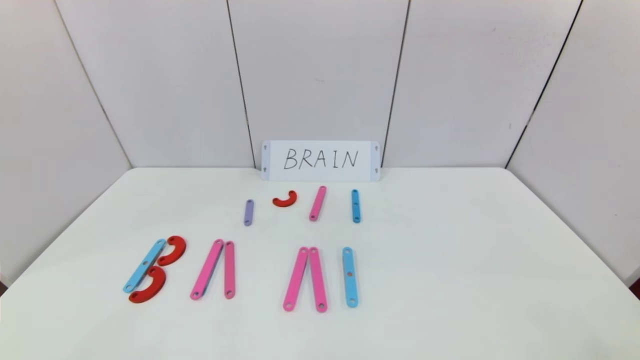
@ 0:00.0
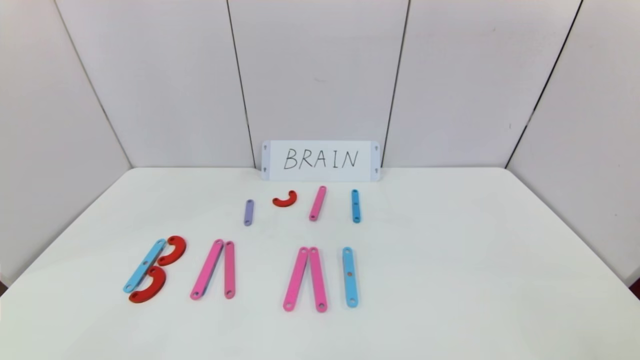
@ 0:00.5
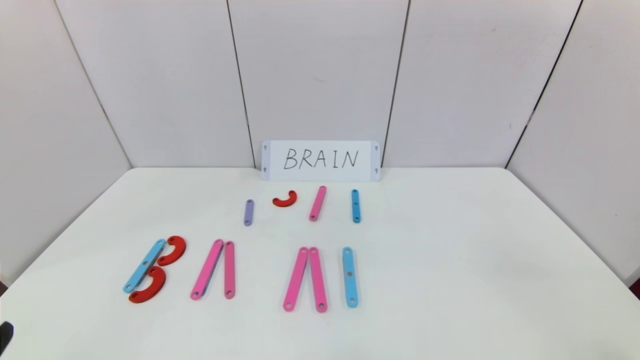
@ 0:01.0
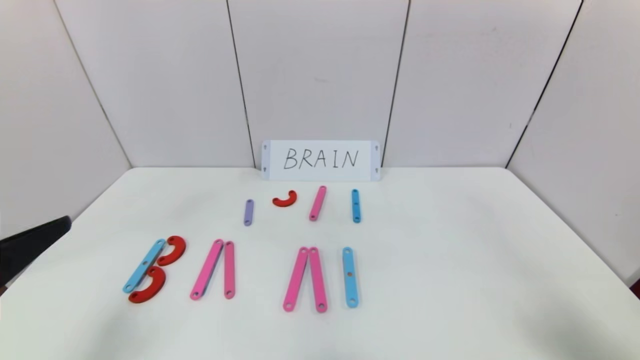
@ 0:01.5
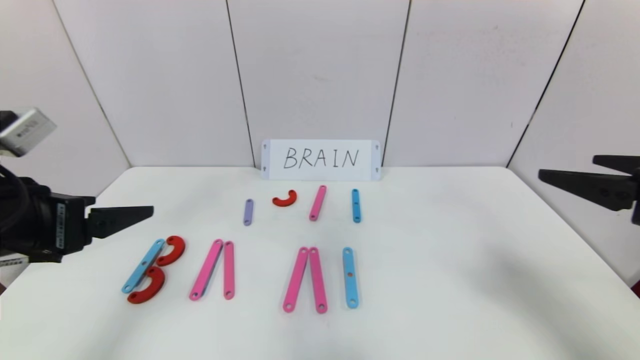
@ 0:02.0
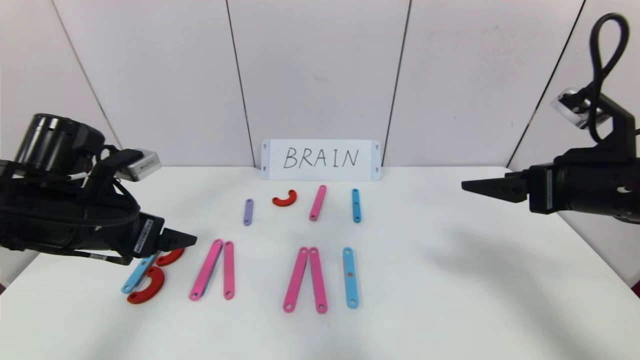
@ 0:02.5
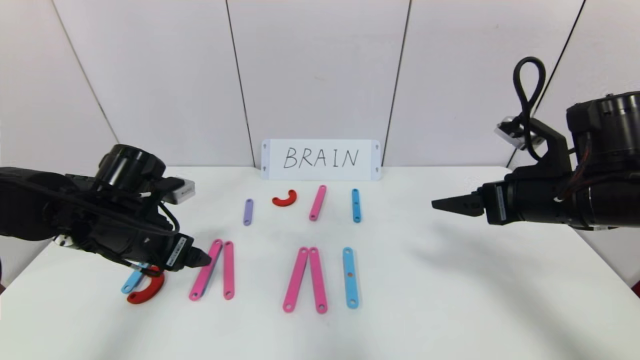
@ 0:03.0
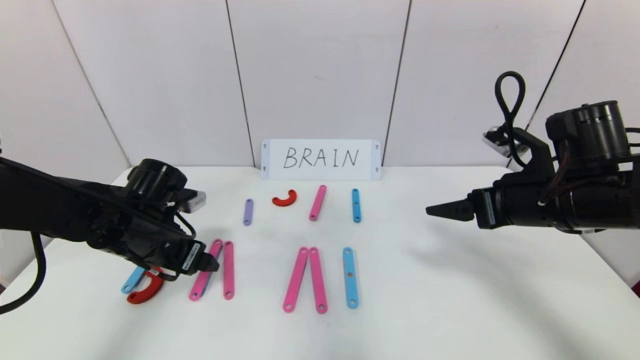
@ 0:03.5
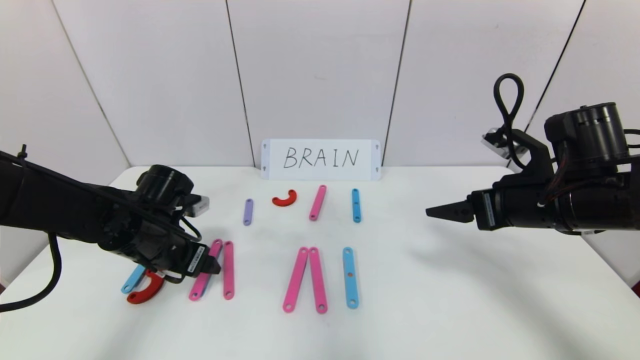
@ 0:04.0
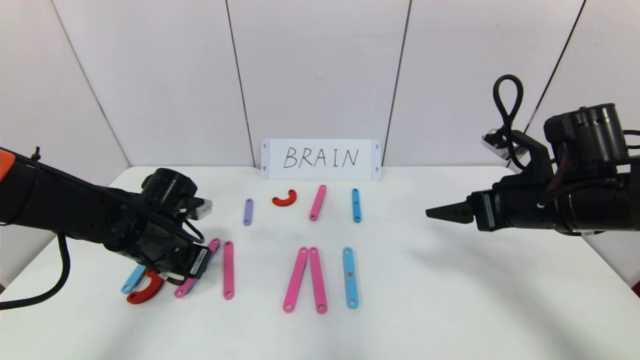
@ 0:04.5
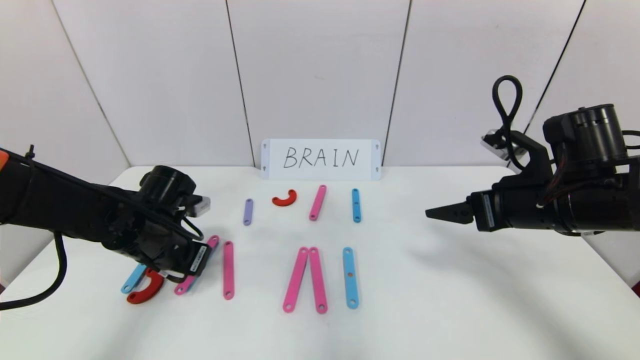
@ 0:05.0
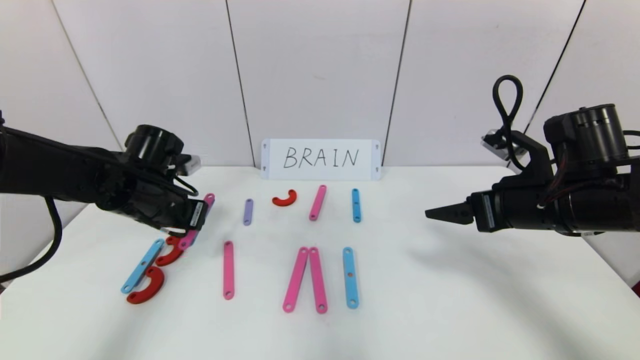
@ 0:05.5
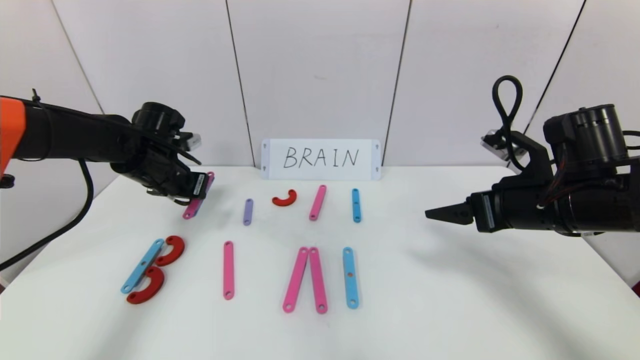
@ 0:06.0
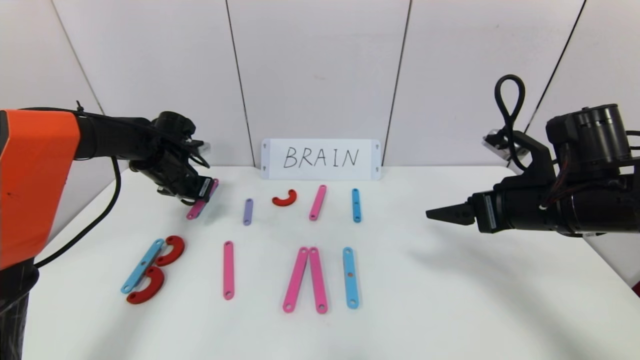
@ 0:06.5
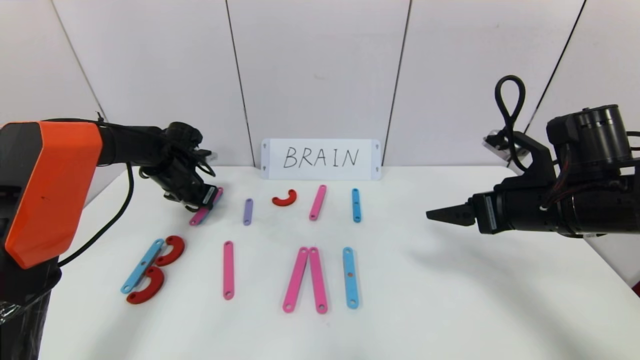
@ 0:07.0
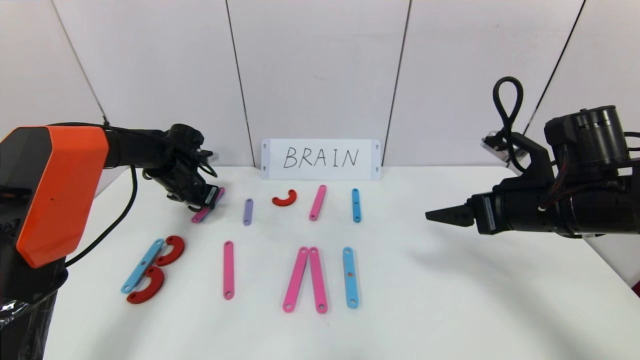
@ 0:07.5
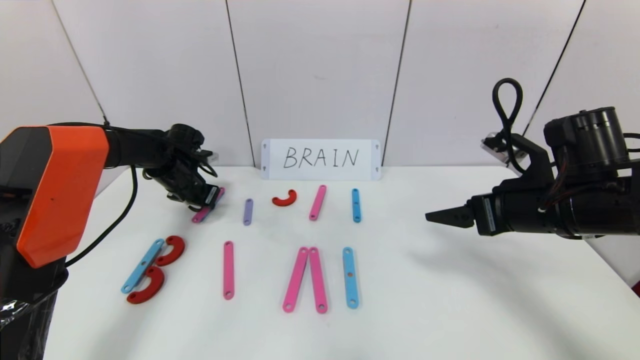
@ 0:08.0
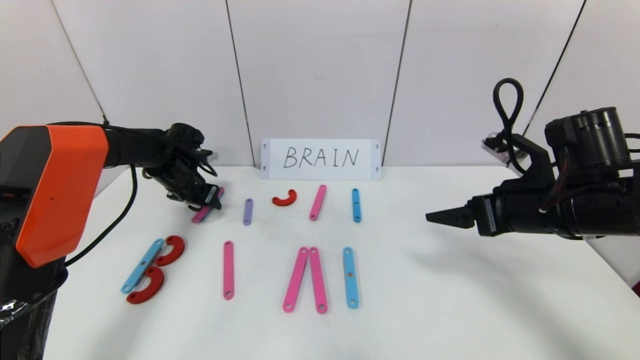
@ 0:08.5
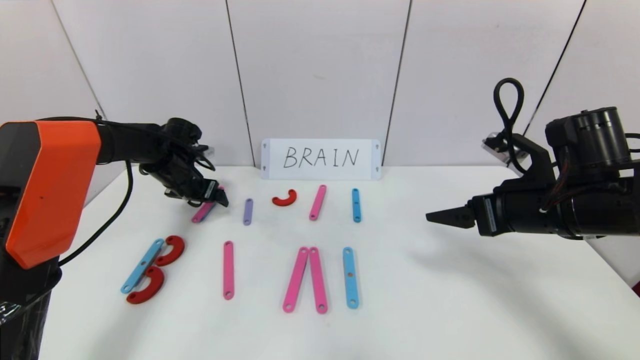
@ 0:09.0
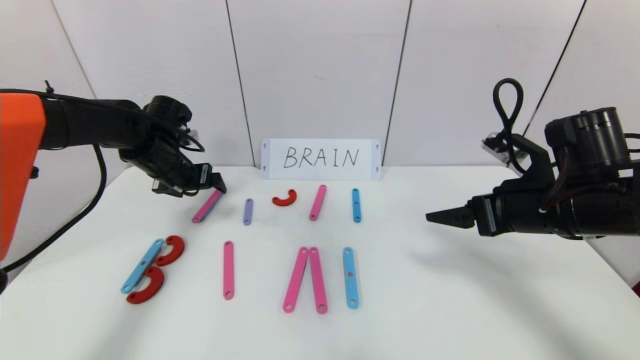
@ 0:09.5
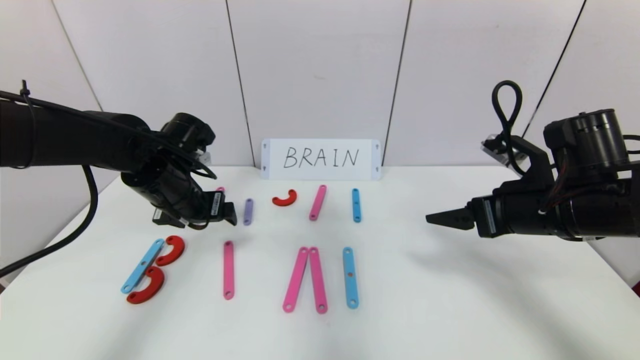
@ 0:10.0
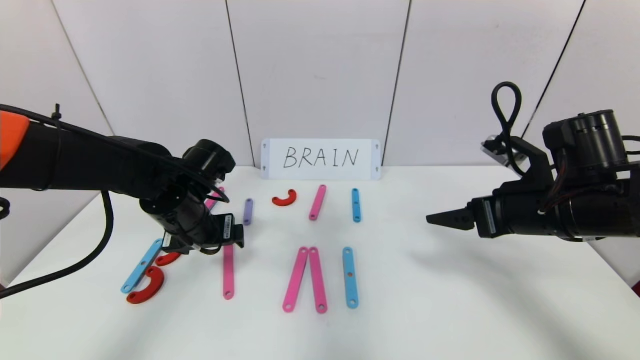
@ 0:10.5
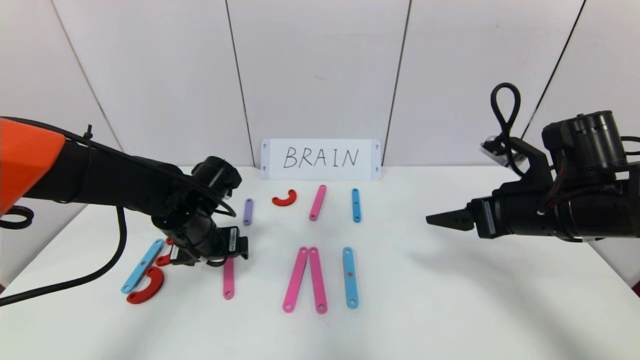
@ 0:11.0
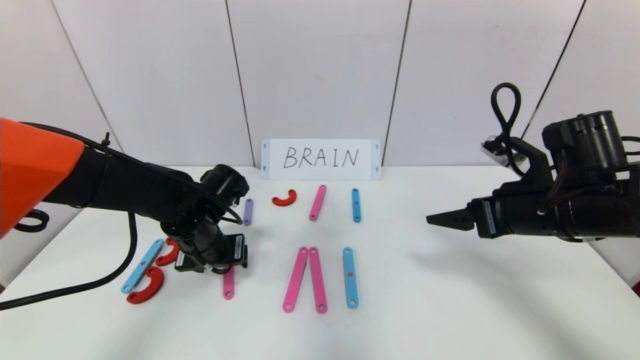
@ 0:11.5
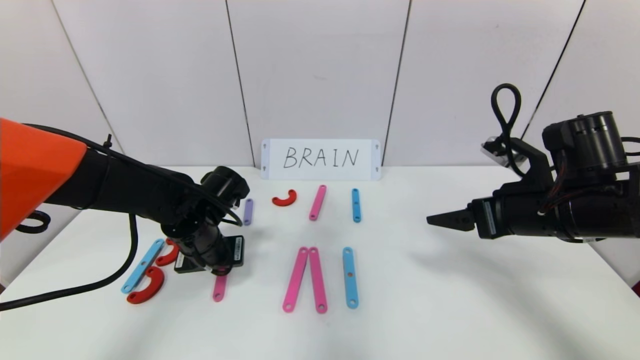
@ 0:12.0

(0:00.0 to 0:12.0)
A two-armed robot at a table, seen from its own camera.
Task of the whole recording: rearrange the word baai as brain.
0:00.0 - 0:02.0: The right gripper travels upward and forward by approximately 25 cm, while the left gripper is displaced forward and upward by some 25 cm.
0:02.0 - 0:04.0: The left gripper travels downward and forward by approximately 20 cm, while the right gripper travels forward and downward by roughly 15 cm.
0:04.0 - 0:06.0: The left gripper travels forward and upward by approximately 10 cm, and closes.
0:06.0 - 0:08.0: The left gripper is displaced forward and downward by roughly 10 cm.
0:08.0 - 0:10.0: The left gripper moves backward, to the right and upward, roughly 15 cm, and opens.
0:10.0 - 0:12.0: The left gripper shifts some 5 cm downward, and closes its fingers.

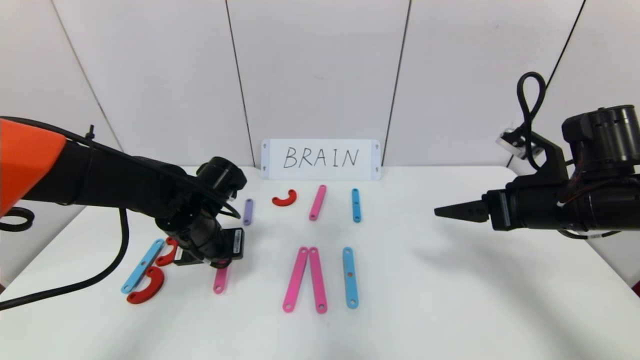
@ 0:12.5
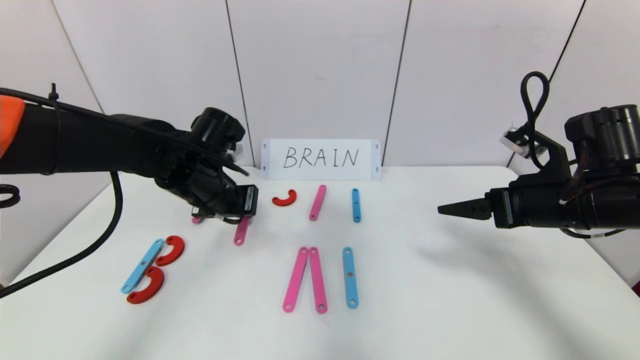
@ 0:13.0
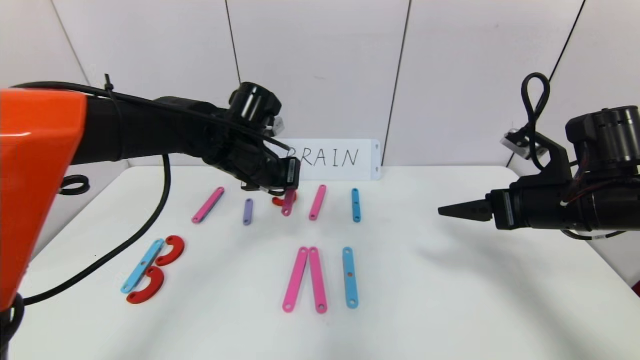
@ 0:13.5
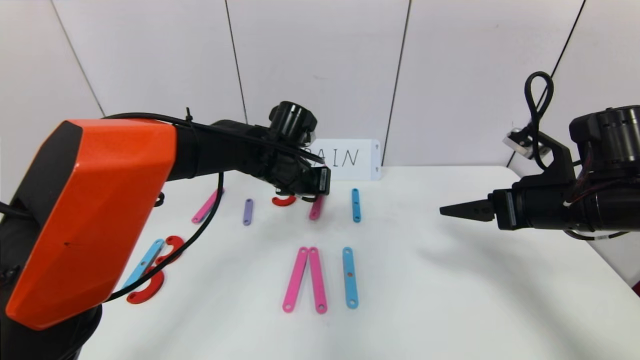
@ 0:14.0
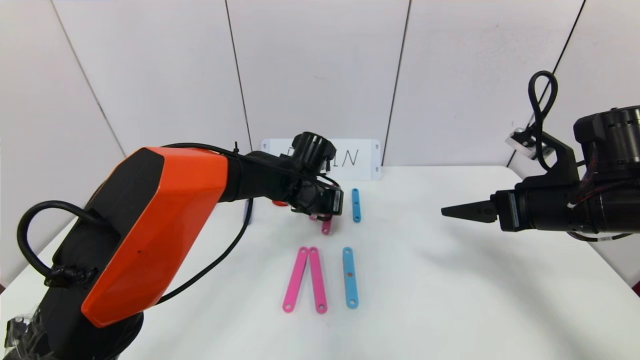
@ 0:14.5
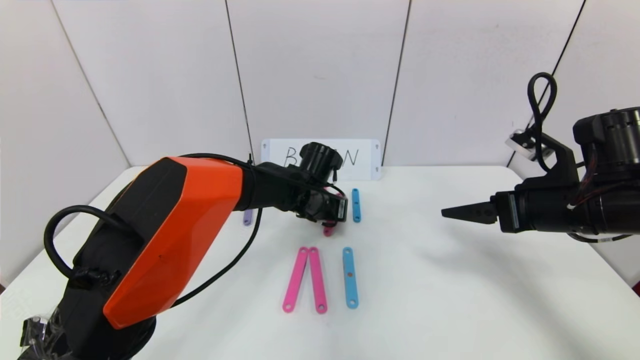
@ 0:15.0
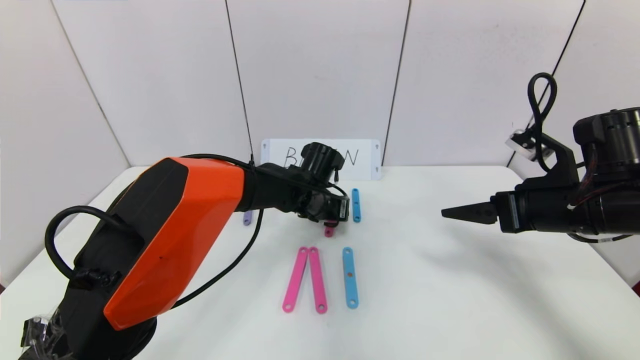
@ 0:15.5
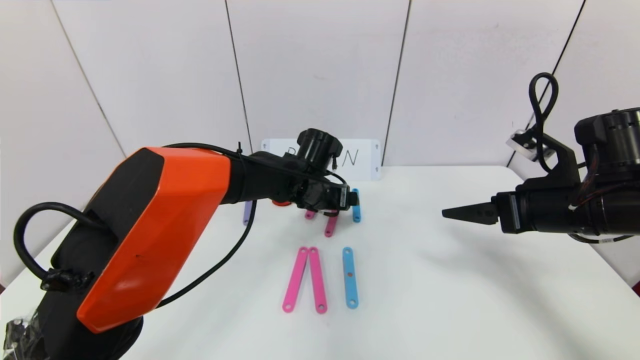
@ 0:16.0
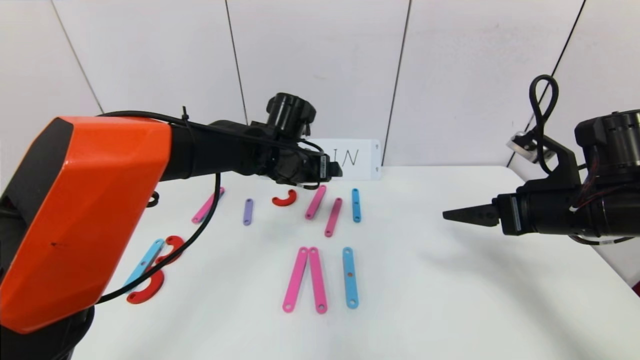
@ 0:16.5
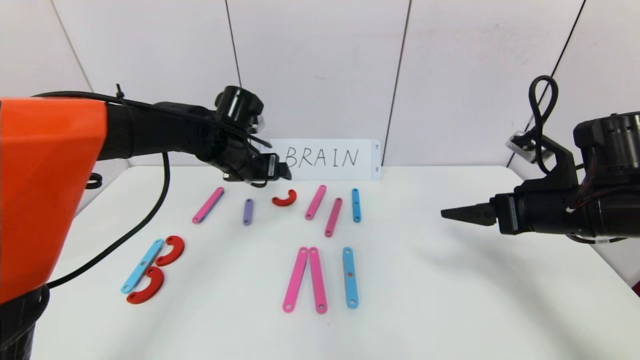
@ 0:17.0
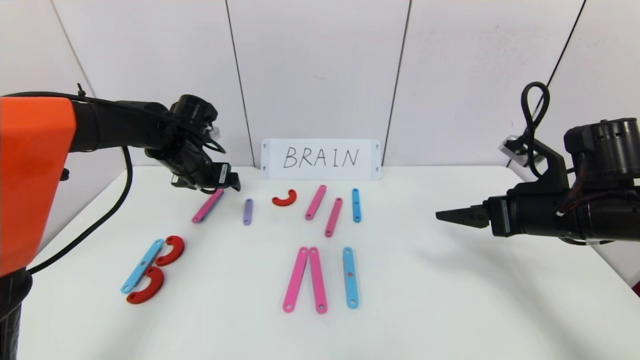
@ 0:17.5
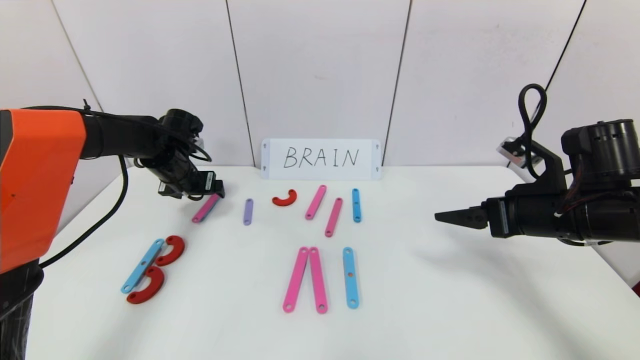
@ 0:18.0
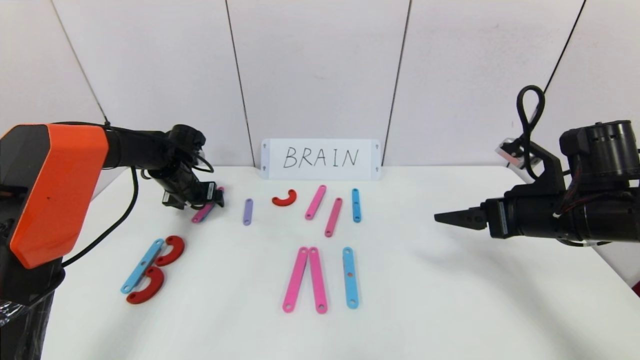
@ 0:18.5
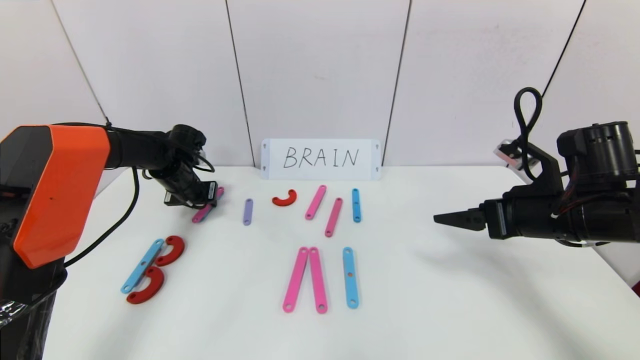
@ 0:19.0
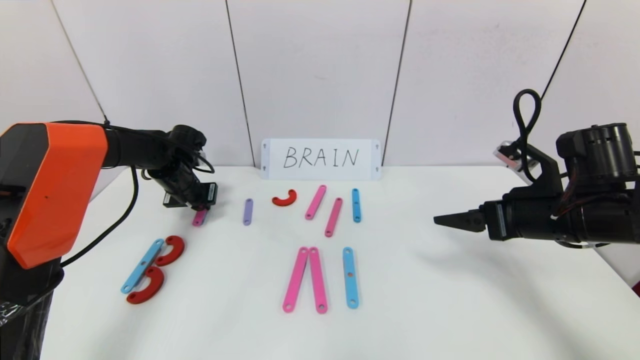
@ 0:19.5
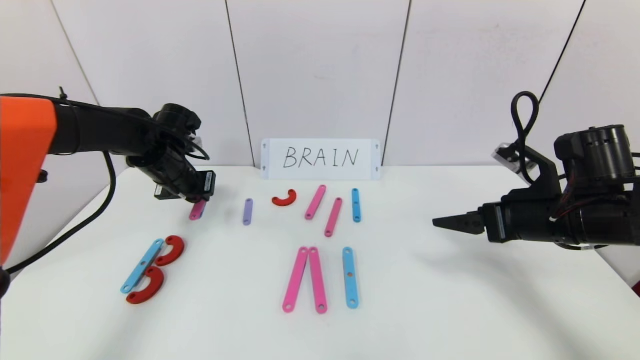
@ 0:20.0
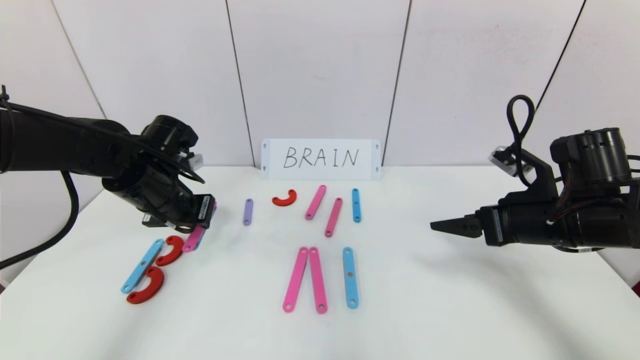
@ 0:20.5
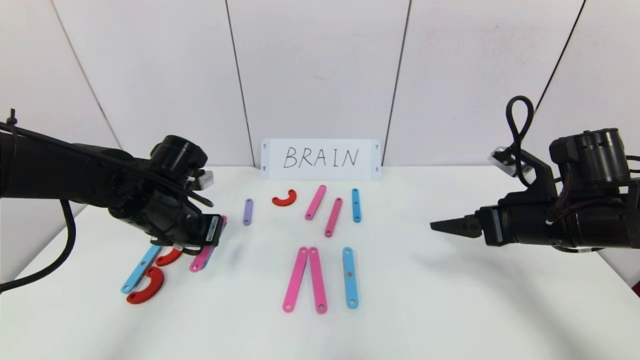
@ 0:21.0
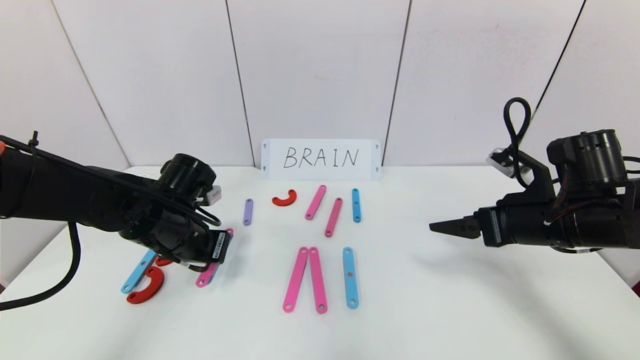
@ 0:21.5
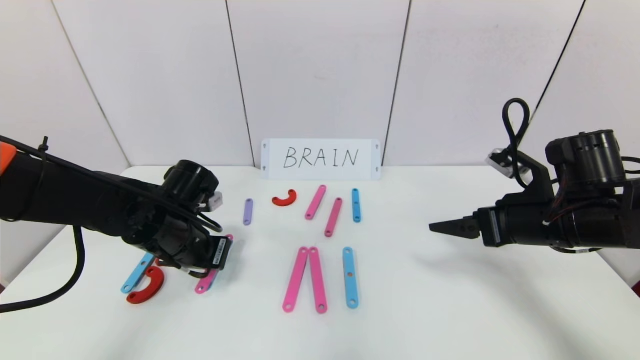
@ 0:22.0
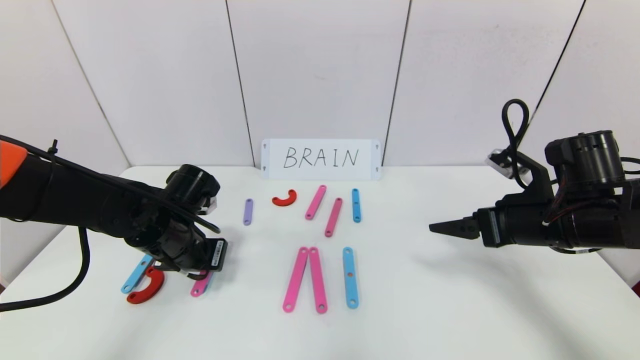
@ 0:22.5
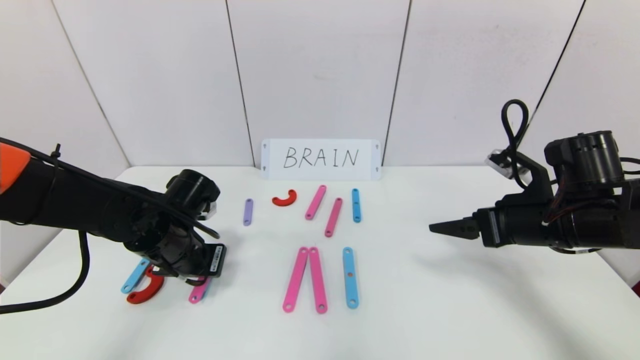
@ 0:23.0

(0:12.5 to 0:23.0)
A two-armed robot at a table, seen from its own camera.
Task of the whole recording: rearrange the word baai as brain.
Step, 0:12.5 - 0:15.5: Disassemble the second character A.
0:12.5 - 0:14.5: The left gripper heads to the right and forward, covering about 20 cm.
0:14.5 - 0:16.5: The left gripper travels upward by roughly 5 cm, and opens.
0:16.5 - 0:19.0: The left gripper travels to the left by about 20 cm, and closes.
0:19.0 - 0:21.0: The left gripper goes approximately 15 cm backward.
0:21.0 - 0:23.0: The grippers move only a little.
